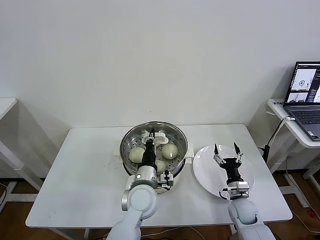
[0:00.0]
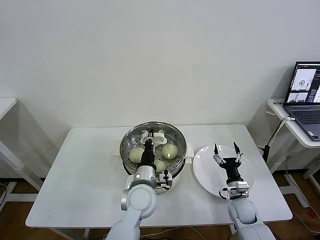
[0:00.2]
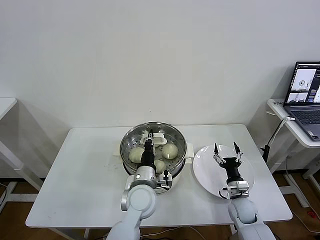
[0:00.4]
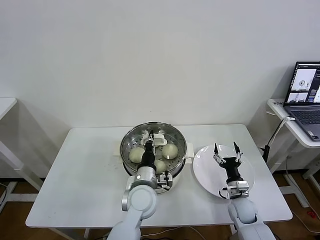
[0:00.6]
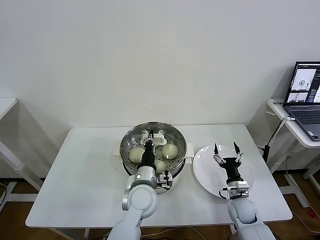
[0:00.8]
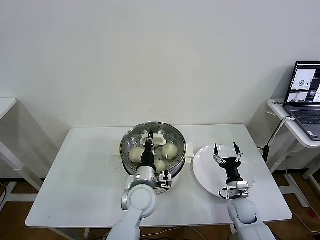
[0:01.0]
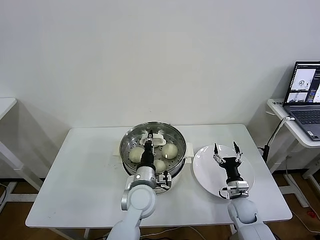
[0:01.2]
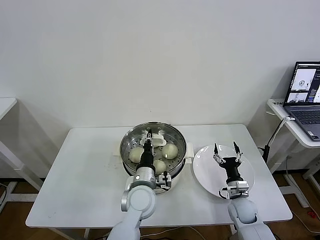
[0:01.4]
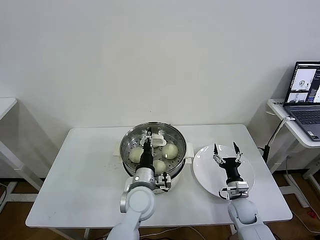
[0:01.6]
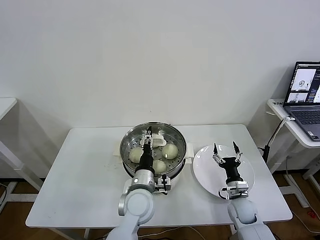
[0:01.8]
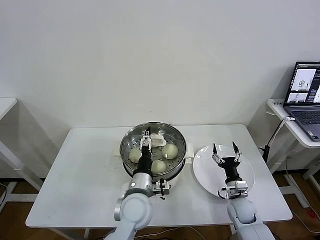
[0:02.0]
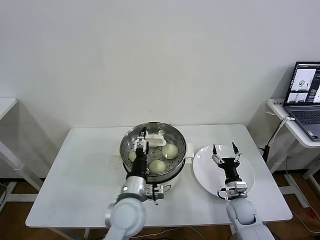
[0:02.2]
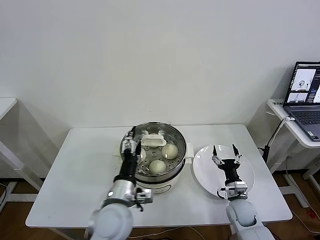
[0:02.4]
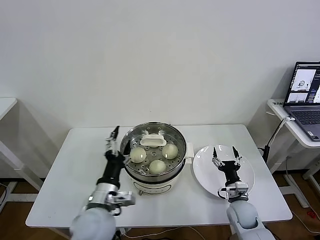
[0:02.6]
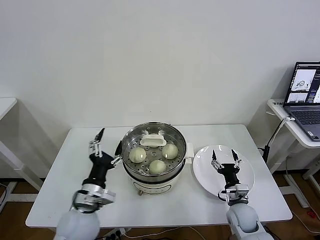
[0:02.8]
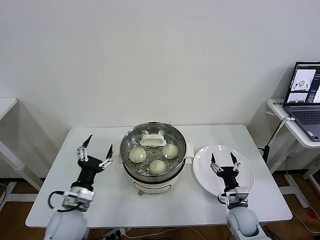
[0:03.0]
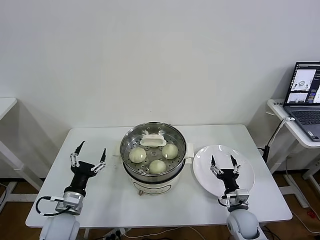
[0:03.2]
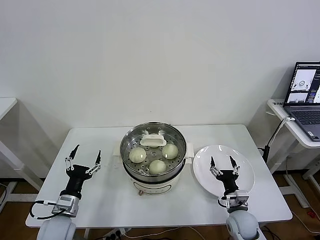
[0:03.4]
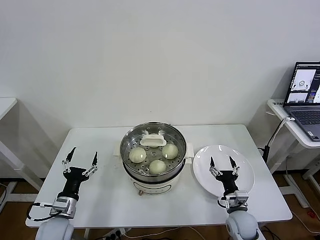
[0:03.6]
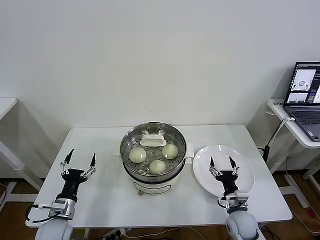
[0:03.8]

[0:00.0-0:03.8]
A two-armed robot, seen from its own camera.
Task of the whole recording: take steamed baozi put them in steamer then cover it.
Step, 0:00.0 to 0:02.0: Place the pot lid on the steamer with left gripper.
0:00.0 to 0:01.2: The grippers stay close to where they were, moving slightly.
0:01.2 to 0:02.6: The left gripper heads to the left, backward and upward, covering some 15 cm, and opens up.
0:02.6 to 0:03.8: The left gripper is displaced to the left and downward by some 20 cm.

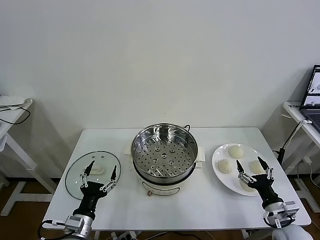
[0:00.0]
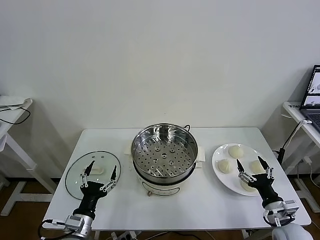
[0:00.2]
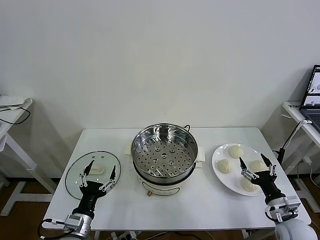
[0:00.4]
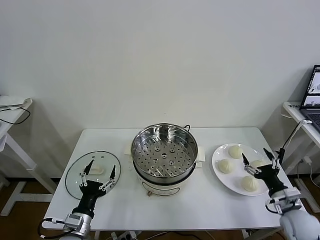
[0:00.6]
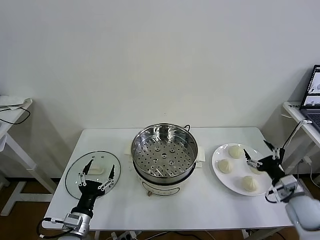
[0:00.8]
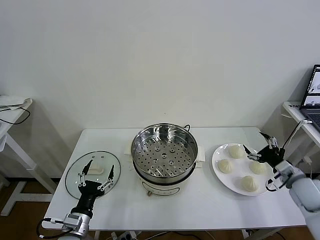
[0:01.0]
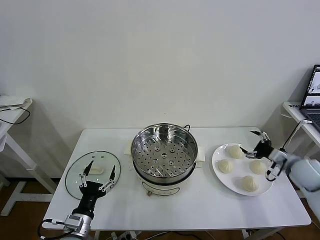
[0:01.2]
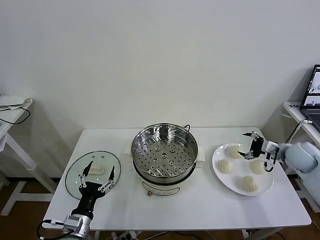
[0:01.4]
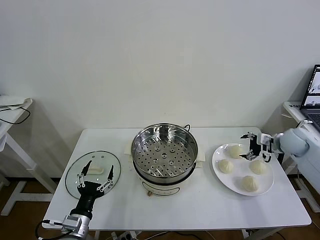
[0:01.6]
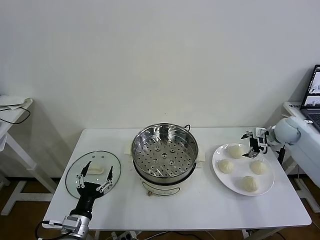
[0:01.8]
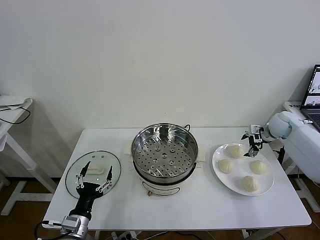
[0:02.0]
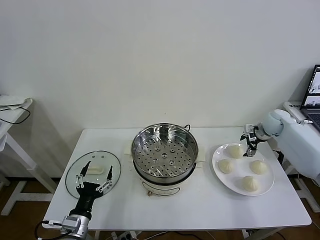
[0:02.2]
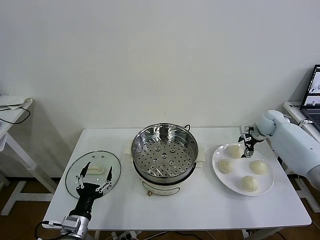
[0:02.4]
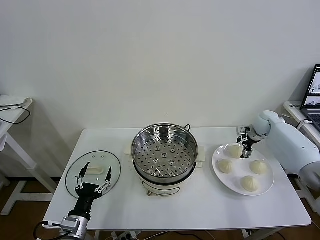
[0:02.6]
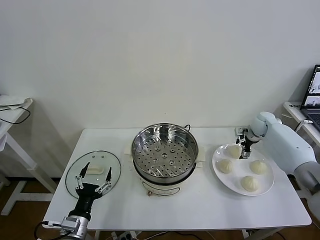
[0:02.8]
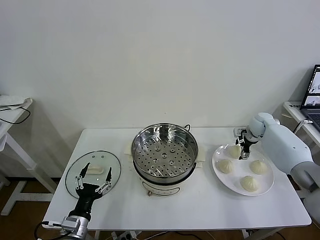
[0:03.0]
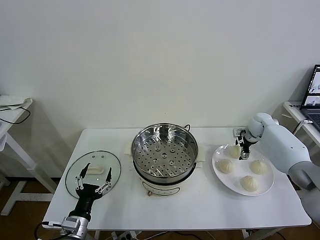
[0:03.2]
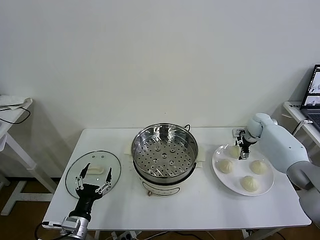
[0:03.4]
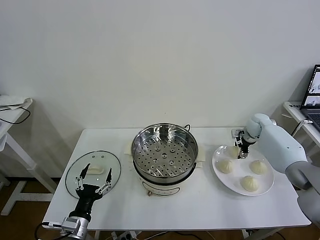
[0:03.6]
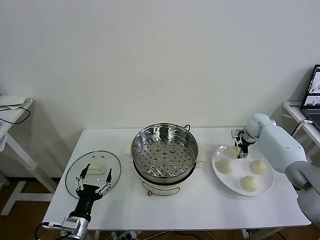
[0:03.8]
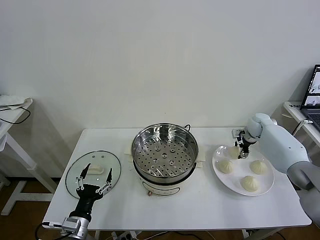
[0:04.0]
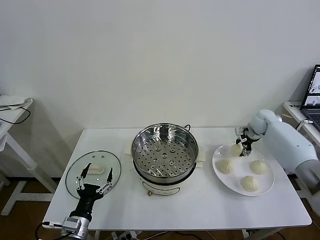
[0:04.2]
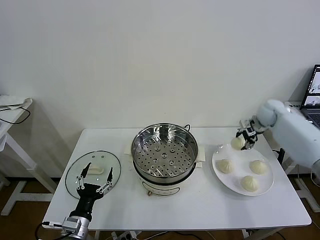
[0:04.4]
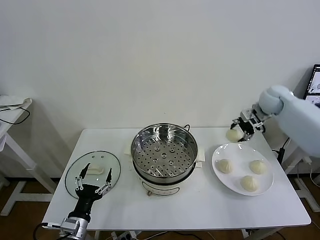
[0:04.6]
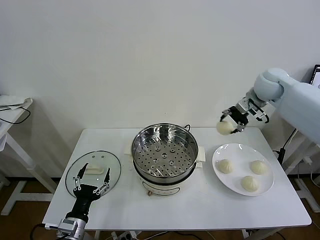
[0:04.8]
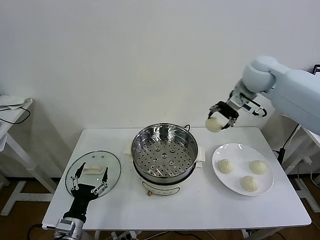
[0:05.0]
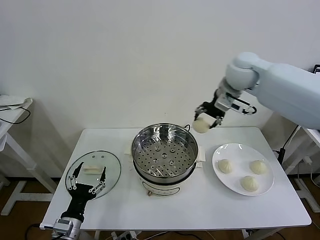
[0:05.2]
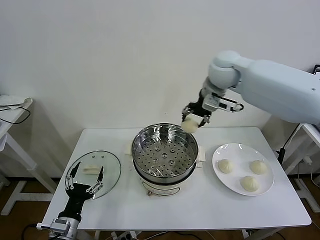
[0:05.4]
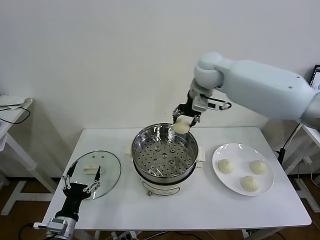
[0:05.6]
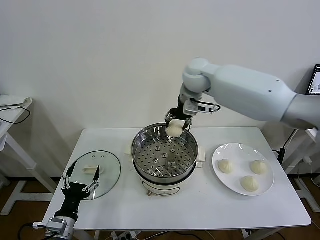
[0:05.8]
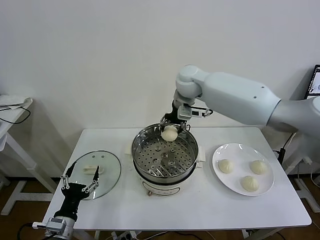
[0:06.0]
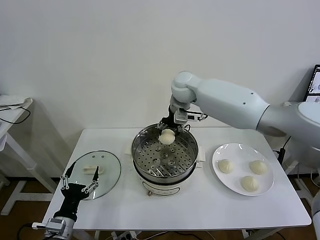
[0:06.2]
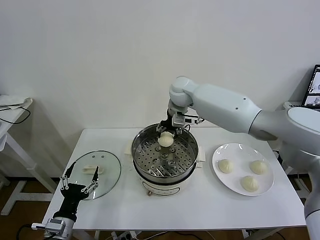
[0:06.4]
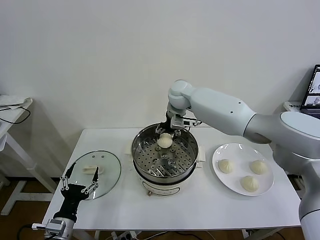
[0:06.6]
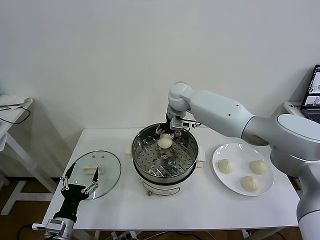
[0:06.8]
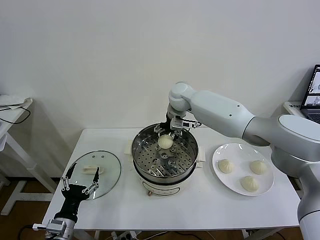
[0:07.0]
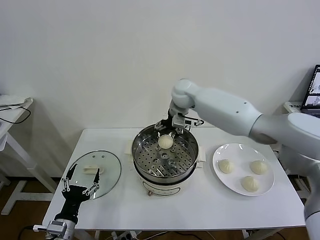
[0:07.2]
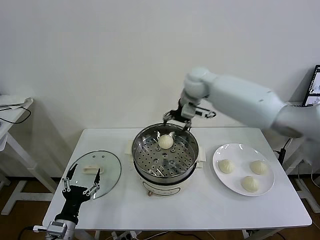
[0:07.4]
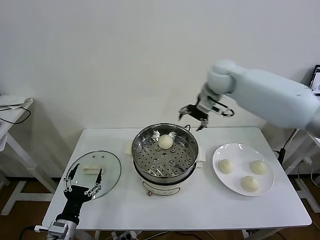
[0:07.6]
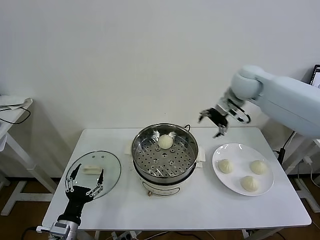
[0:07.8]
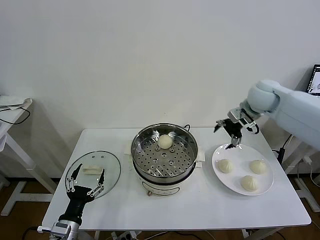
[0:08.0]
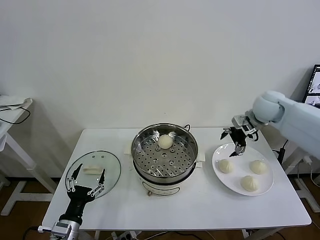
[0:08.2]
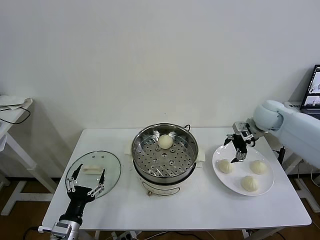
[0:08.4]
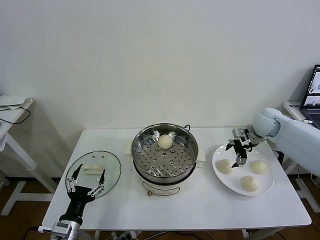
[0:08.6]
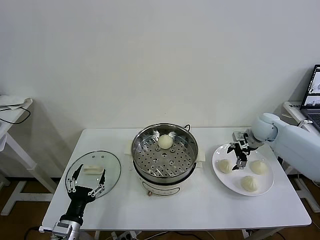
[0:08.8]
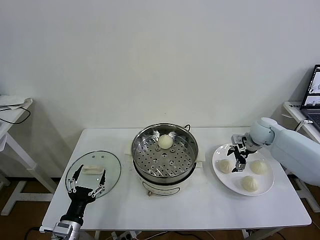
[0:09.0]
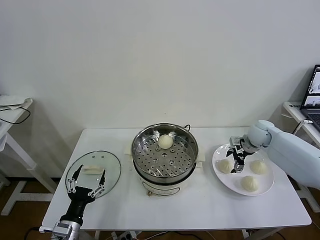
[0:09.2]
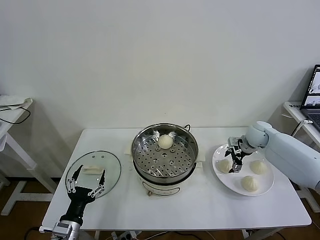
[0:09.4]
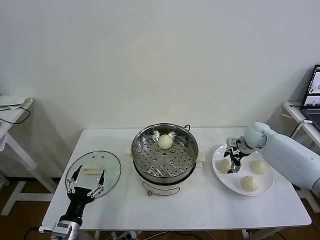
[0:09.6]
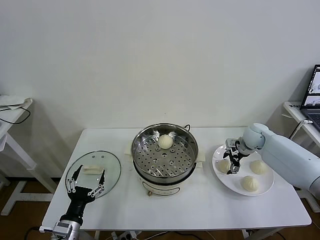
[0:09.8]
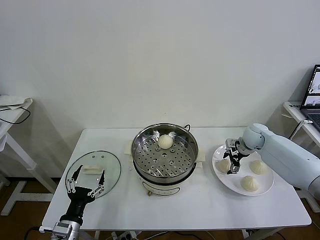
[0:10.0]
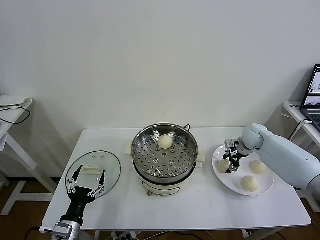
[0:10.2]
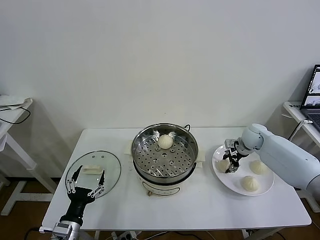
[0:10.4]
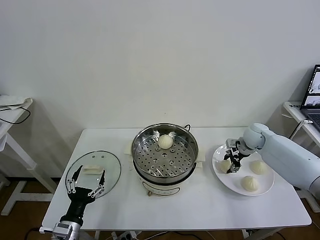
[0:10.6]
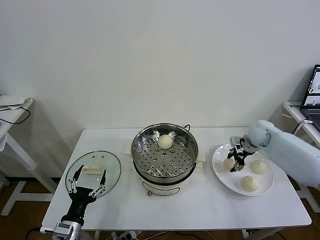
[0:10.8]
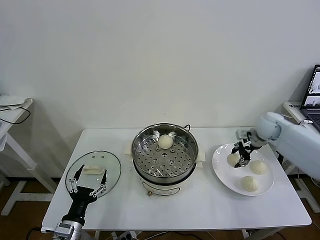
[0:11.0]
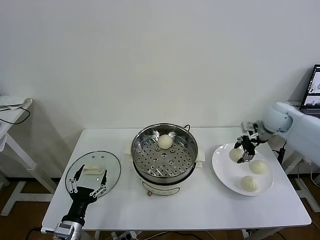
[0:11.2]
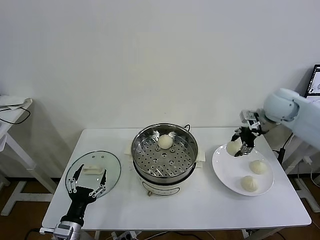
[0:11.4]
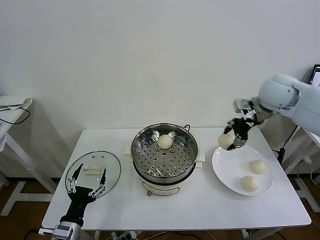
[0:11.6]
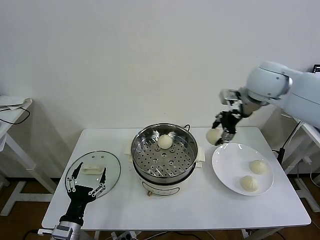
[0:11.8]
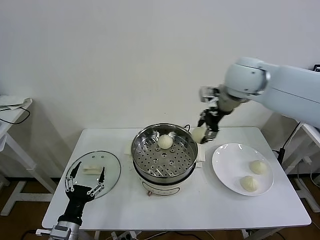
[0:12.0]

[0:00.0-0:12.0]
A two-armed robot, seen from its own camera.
Task of the whole recording: take steamed baozi put them in steamer then cover it.
Step, 0:00.0 to 0:03.6: Grasp the baozi in the plate with right gripper.
Step, 0:04.0 to 0:07.0: Place the baozi on the steamer with right gripper.
Step, 0:07.2 to 0:10.4: Grasp the baozi in the plate with right gripper.
0:01.6 to 0:03.0: The right gripper is displaced forward by about 10 cm.
0:03.0 to 0:04.4: The right gripper is displaced upward by about 10 cm, and closes its fingers.
0:04.4 to 0:06.0: The right gripper heads to the left, covering about 35 cm.
0:06.0 to 0:07.6: The right gripper shifts about 15 cm to the right, and opens its fingers.
0:07.6 to 0:09.0: The right gripper goes approximately 25 cm downward and to the right.
0:09.0 to 0:10.4: The right gripper closes its fingers.
0:10.4 to 0:12.0: The right gripper travels upward and to the left by roughly 35 cm.

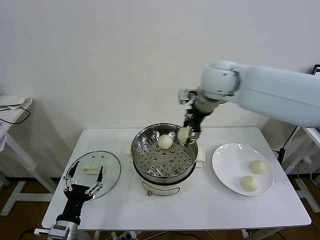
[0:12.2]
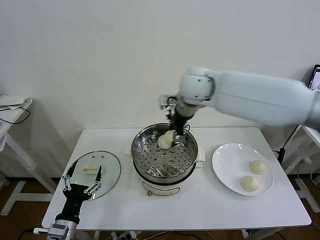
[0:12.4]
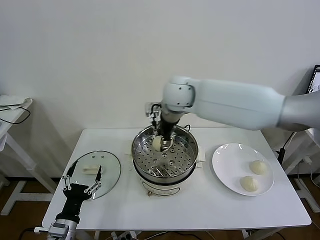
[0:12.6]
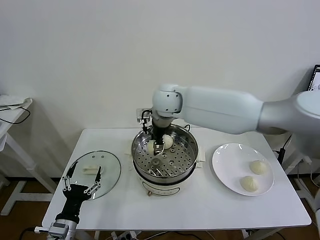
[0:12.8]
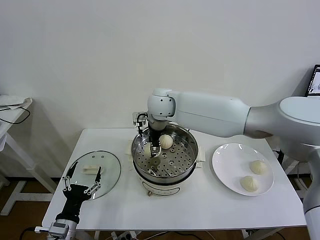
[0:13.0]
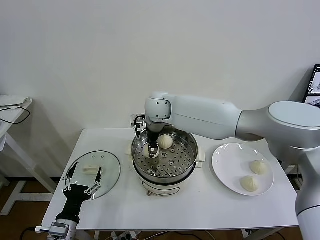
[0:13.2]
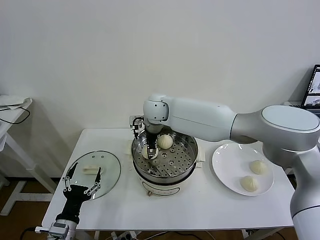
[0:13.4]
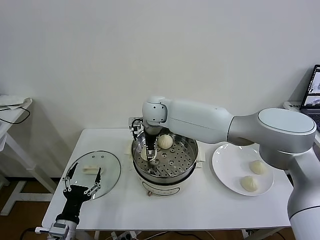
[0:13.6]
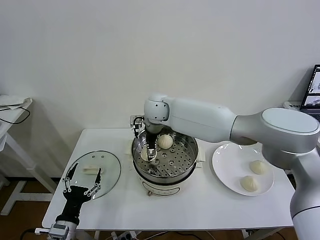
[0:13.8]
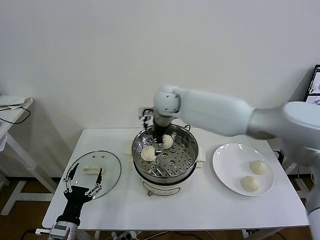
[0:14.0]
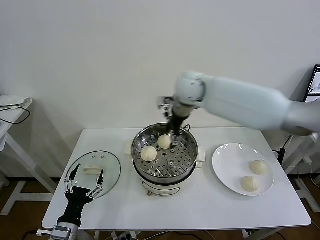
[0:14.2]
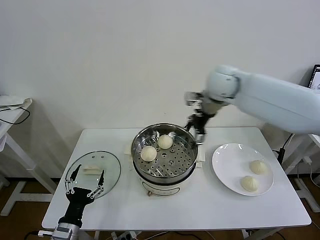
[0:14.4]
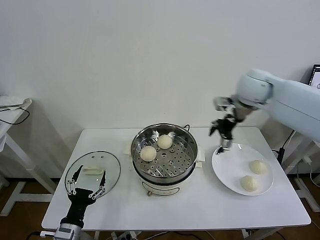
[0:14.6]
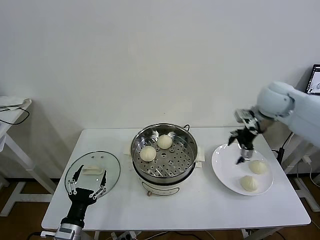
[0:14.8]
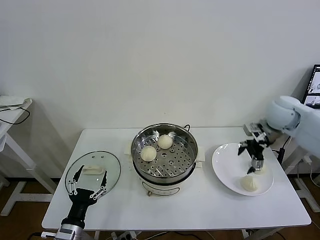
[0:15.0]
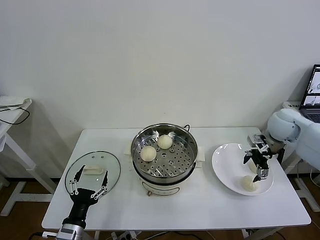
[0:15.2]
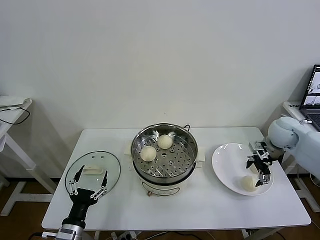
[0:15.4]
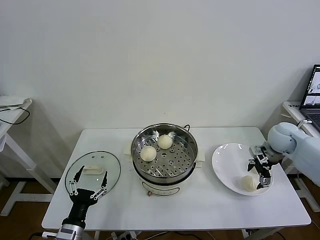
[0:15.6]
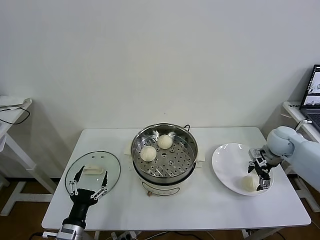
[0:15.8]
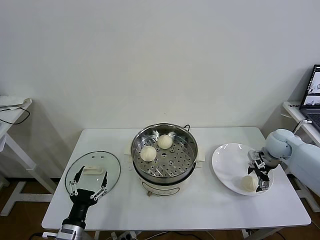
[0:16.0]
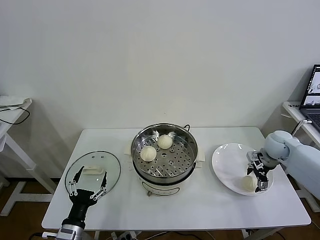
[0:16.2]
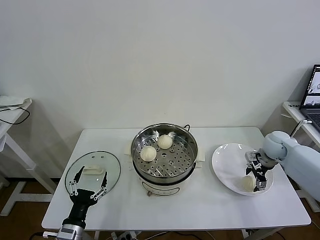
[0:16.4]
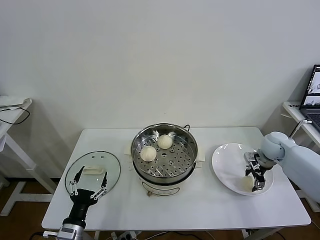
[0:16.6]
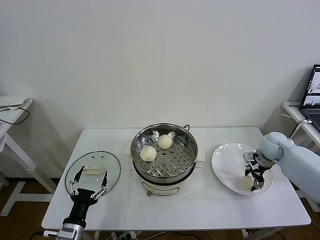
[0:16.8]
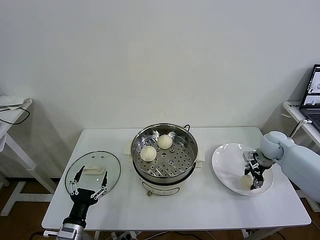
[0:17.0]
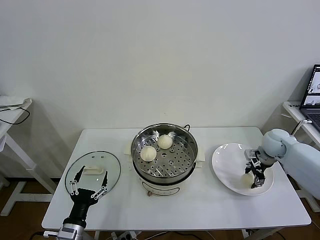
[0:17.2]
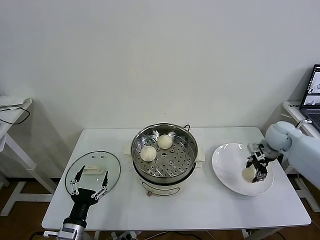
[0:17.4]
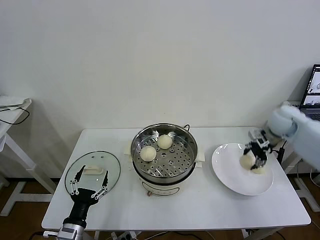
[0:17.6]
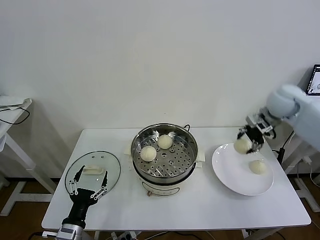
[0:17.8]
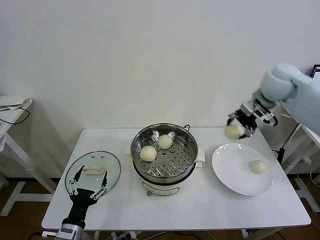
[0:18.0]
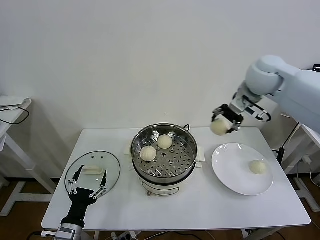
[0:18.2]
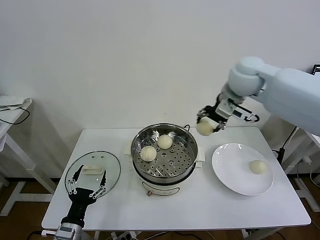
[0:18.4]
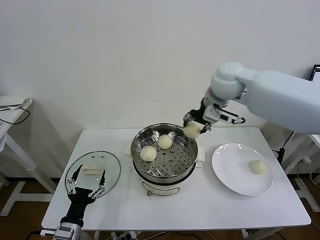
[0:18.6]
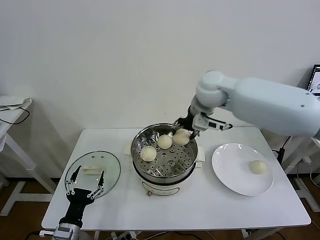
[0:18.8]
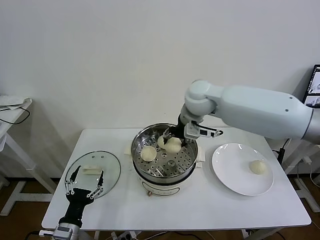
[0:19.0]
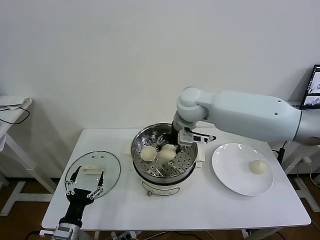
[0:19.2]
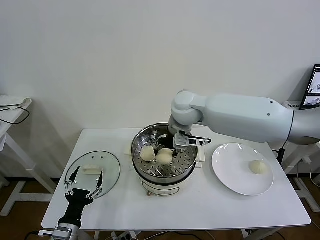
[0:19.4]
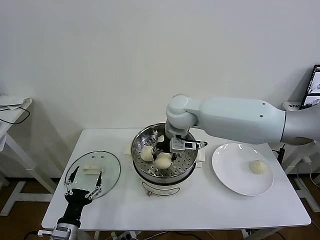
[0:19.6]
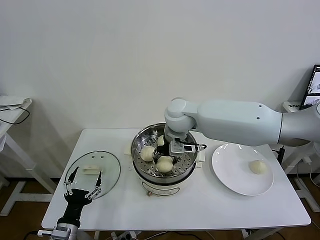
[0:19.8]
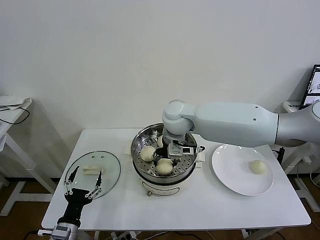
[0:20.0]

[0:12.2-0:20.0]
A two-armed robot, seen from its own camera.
Task of the whole recording: take steamed baozi put them in steamer then cover it.
Step, 0:12.2 to 0:13.8: Place the baozi on the steamer with right gripper.
Step, 0:14.0 to 0:17.0: Grasp the baozi in the plate with right gripper.
0:12.2 to 0:13.8: The right gripper is displaced to the left and downward by roughly 15 cm, and opens up.
0:13.8 to 0:15.4: The right gripper shifts approximately 40 cm to the right.
0:15.4 to 0:16.8: The right gripper travels downward by some 10 cm, and closes up.
0:16.8 to 0:18.4: The right gripper shifts roughly 35 cm upward and to the left.
0:18.4 to 0:20.0: The right gripper goes some 20 cm to the left and downward.
